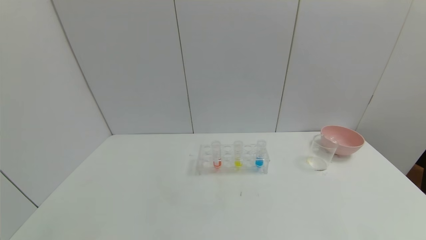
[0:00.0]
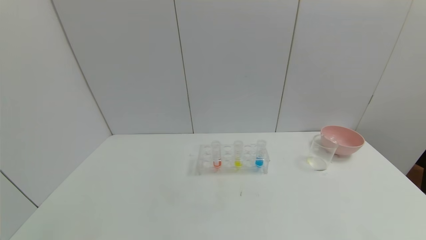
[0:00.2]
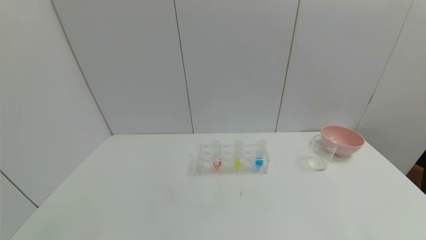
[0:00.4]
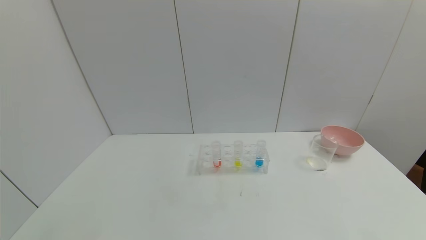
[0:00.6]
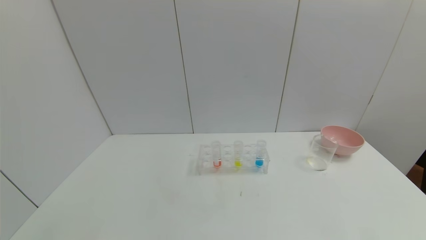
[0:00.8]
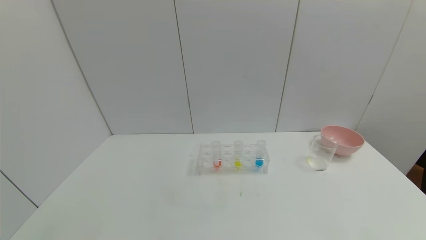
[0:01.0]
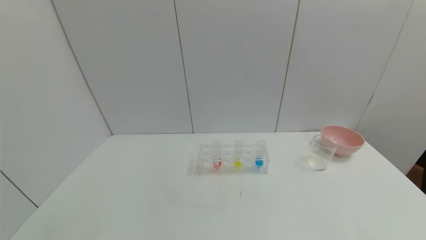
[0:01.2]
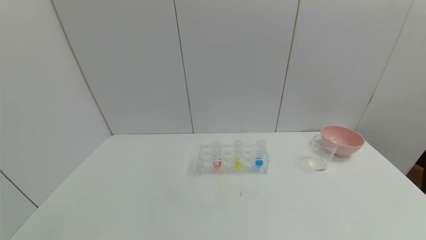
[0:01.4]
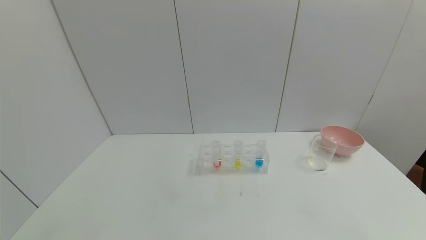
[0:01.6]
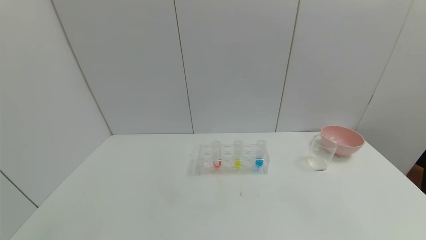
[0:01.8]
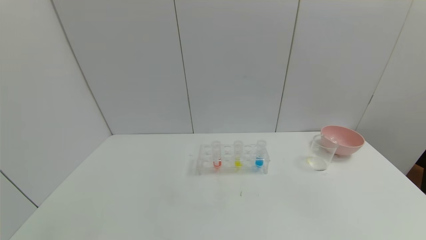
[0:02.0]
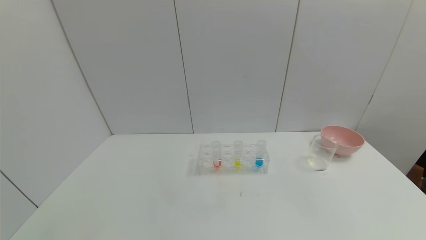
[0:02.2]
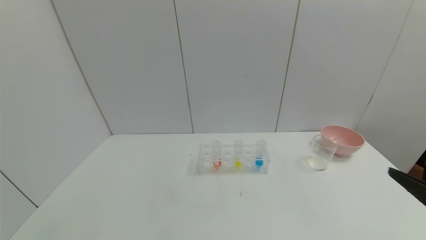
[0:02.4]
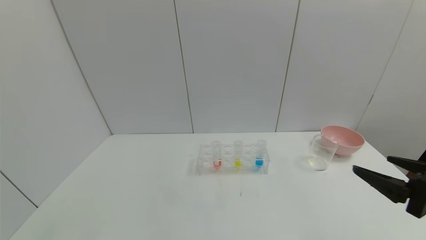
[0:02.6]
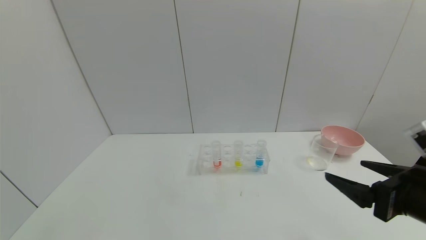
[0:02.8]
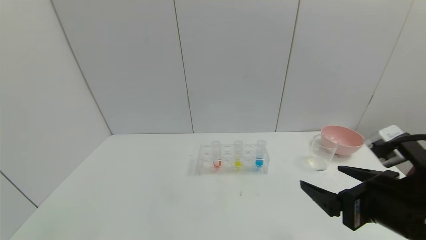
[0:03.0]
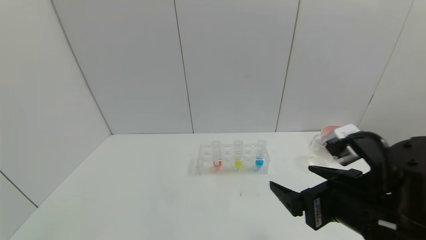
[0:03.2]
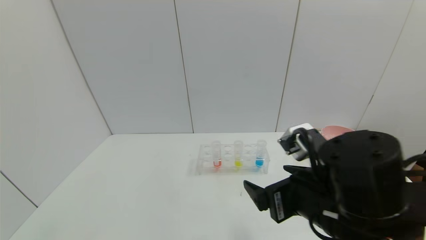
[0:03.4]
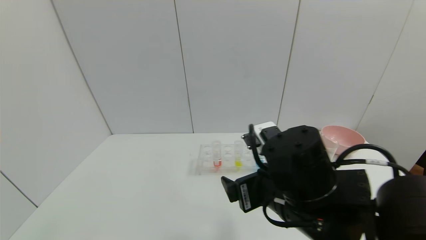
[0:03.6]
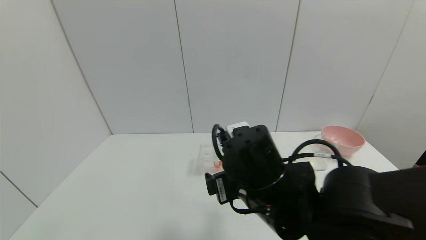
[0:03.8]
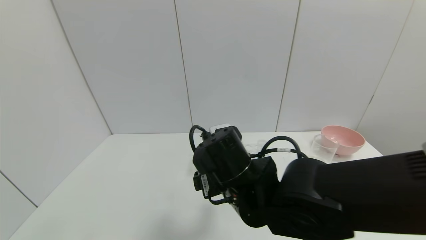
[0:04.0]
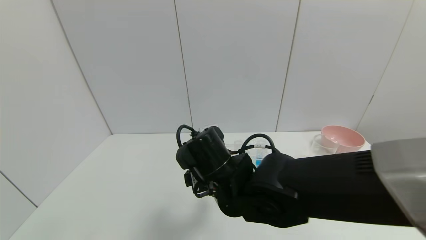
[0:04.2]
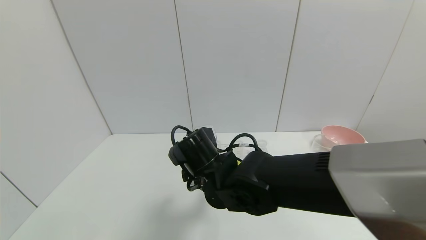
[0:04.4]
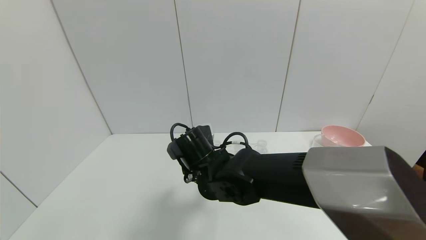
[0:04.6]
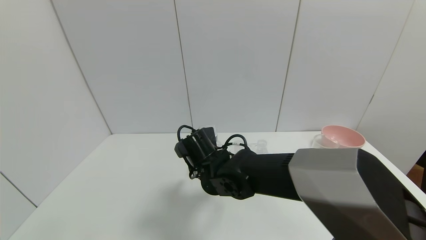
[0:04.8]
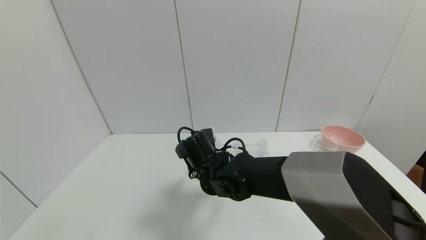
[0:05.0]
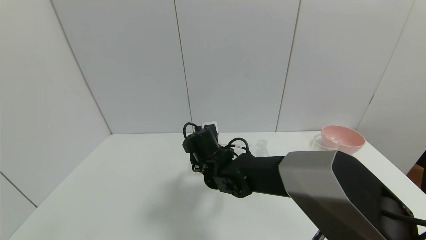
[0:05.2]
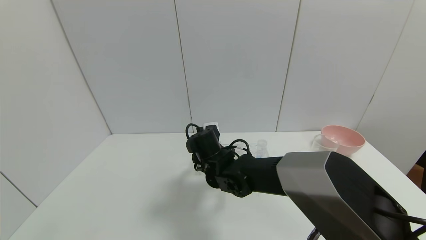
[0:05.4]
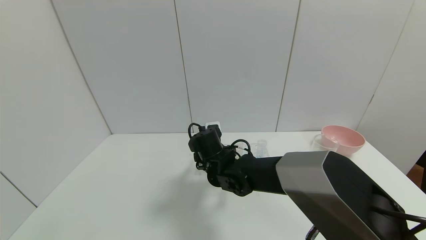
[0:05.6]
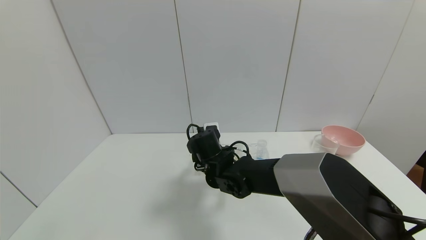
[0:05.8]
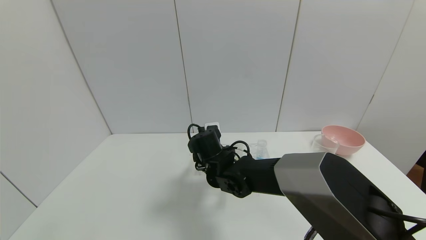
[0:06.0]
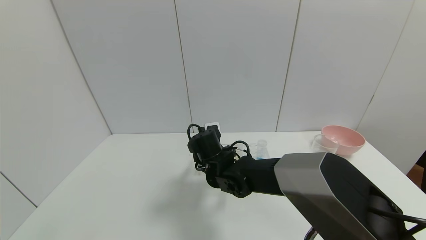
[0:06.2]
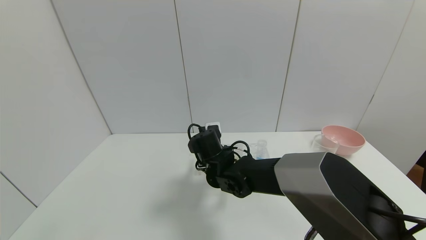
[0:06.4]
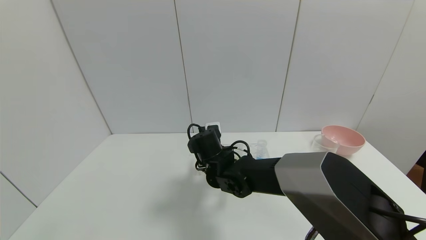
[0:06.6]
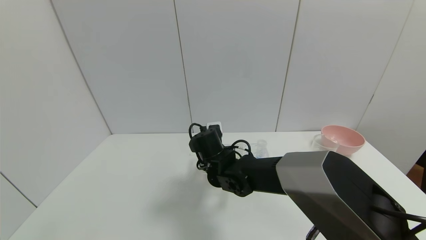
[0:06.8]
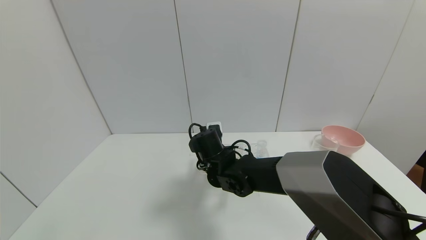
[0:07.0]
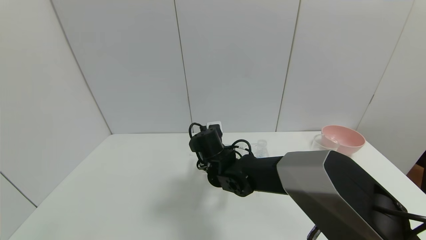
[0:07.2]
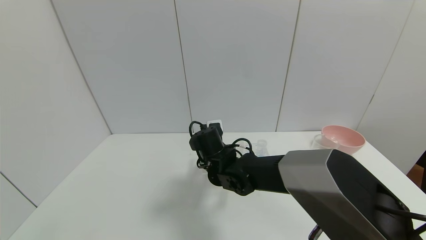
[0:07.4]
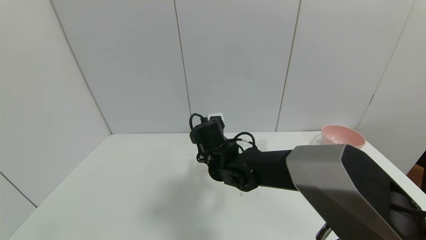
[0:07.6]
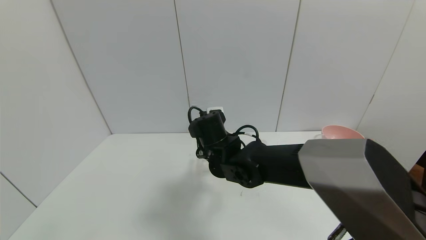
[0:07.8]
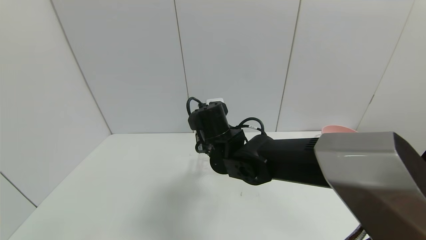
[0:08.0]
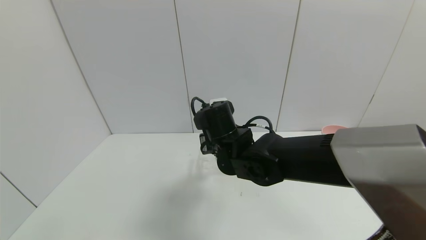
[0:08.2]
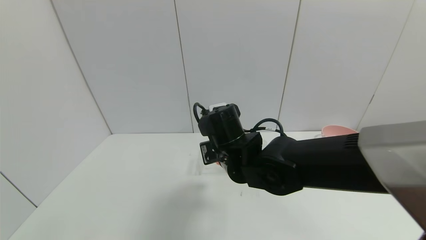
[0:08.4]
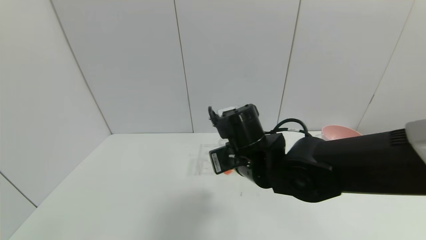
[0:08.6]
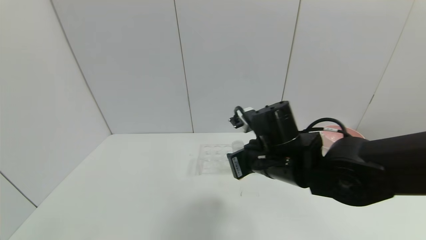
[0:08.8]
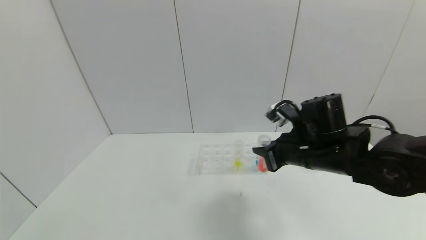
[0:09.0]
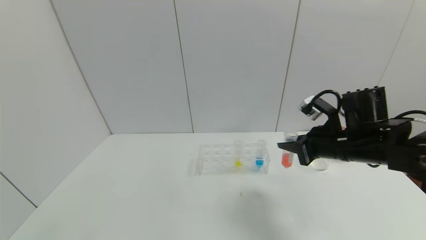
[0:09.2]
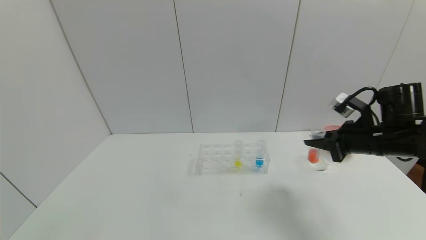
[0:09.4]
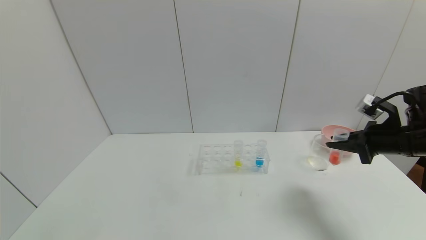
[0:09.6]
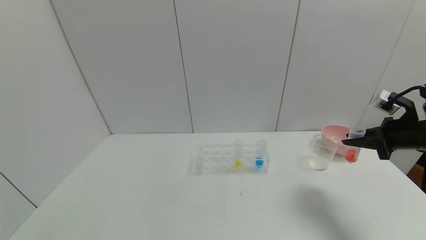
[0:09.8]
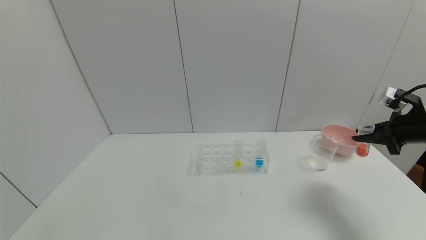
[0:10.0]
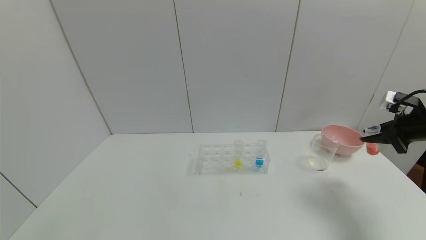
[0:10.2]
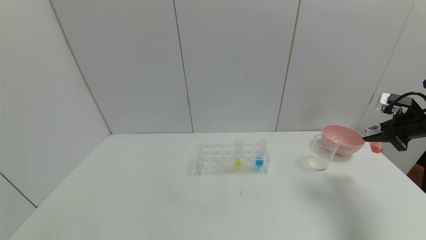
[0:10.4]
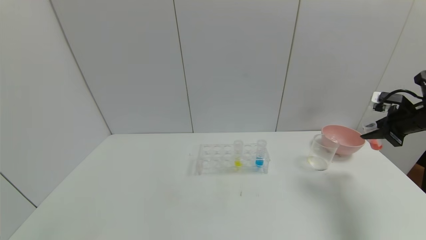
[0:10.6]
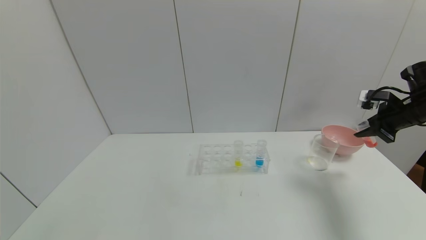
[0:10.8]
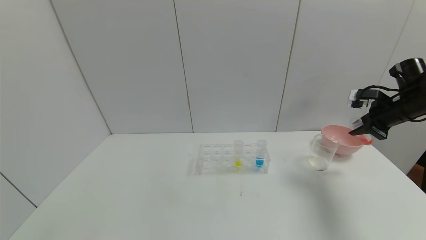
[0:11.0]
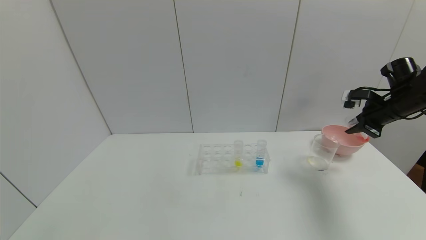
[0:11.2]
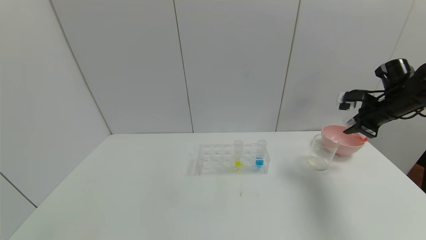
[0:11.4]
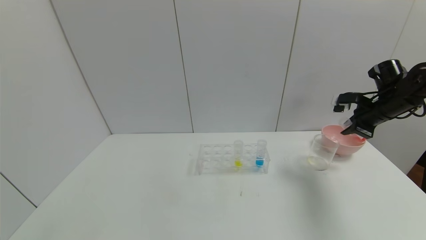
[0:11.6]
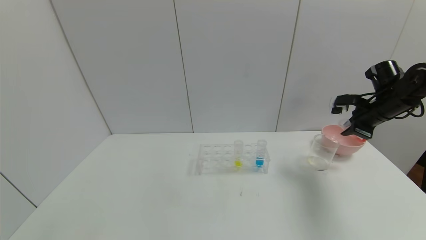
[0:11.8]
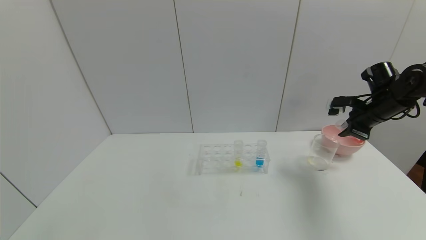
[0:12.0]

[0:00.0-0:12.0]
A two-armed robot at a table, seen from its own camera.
Task of the whole recording: pick up the test tube with yellow pigment and the test tube with red pigment by grippers and pour them into the beaker.
Step, 0:00.0 to 0:07.0: Grasp the red reagent with the right gripper.
0:01.6 to 0:03.0: The right gripper goes about 25 cm forward, to the left and upward.
0:03.0 to 0:04.4: The right gripper moves to the left and forward, some 25 cm.
0:04.4 to 0:06.0: The right gripper goes some 10 cm forward and downward.
0:06.0 to 0:07.6: The right gripper closes.
0:07.6 to 0:09.0: The right gripper travels to the right by some 20 cm.
0:09.0 to 0:10.4: The right gripper moves to the right, approximately 30 cm.
0:10.4 to 0:12.0: The right gripper goes some 10 cm to the left and forward.

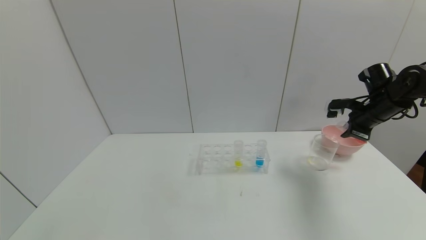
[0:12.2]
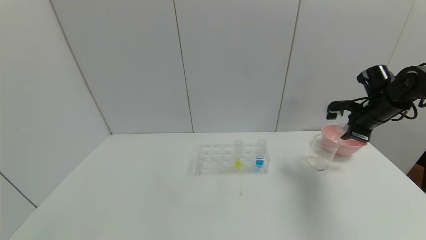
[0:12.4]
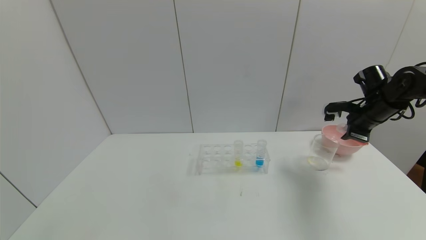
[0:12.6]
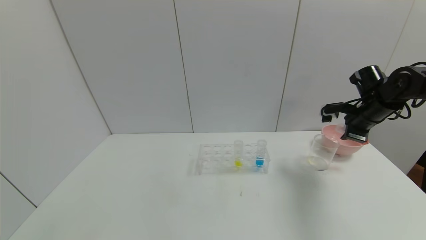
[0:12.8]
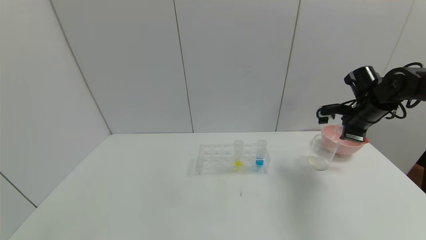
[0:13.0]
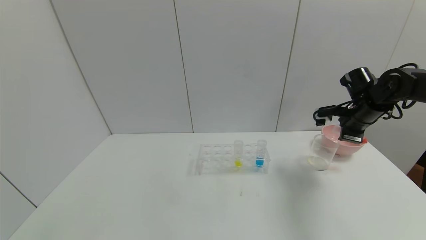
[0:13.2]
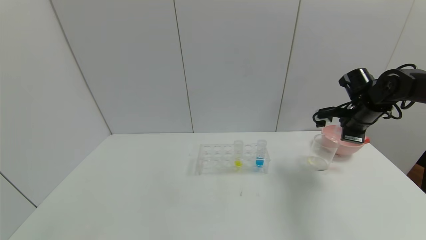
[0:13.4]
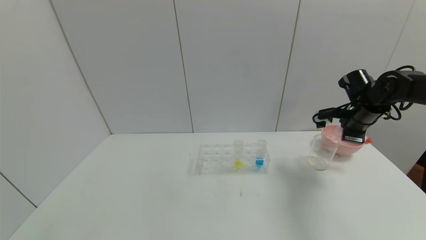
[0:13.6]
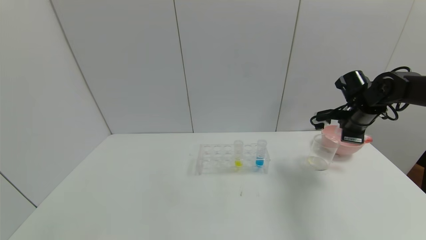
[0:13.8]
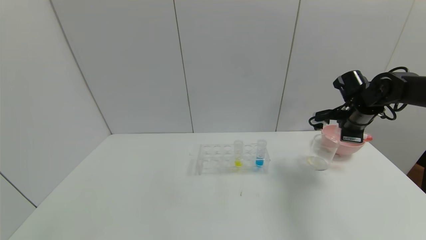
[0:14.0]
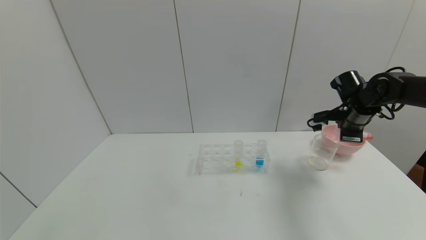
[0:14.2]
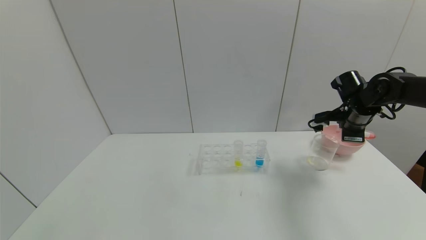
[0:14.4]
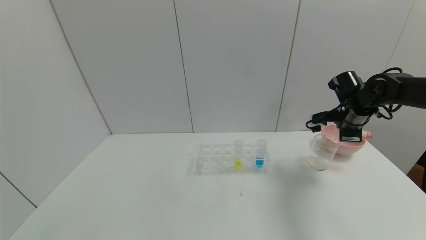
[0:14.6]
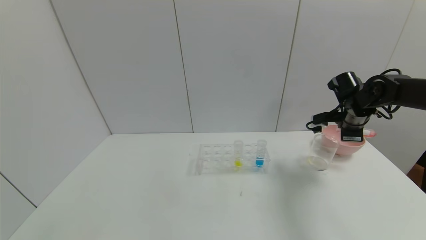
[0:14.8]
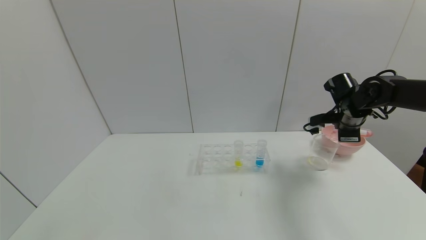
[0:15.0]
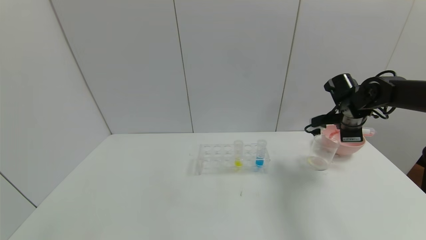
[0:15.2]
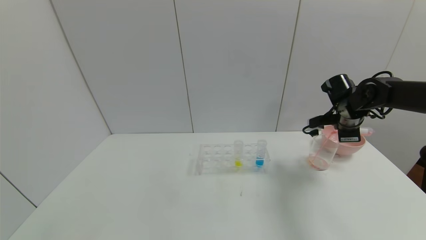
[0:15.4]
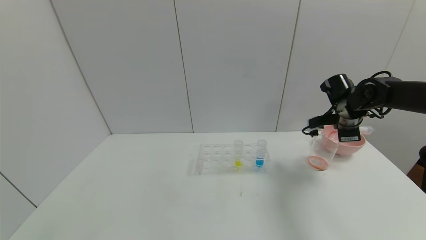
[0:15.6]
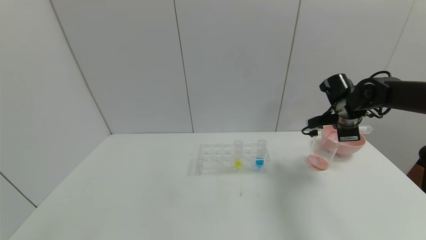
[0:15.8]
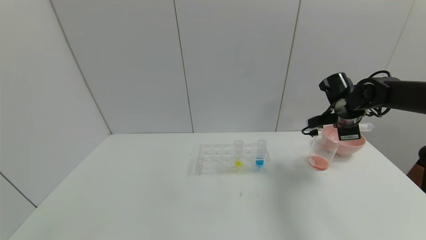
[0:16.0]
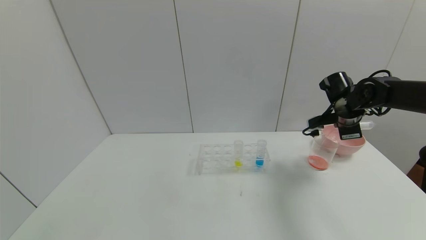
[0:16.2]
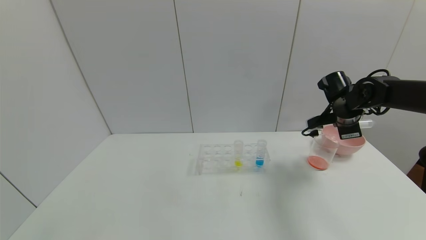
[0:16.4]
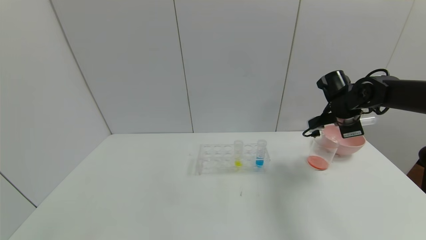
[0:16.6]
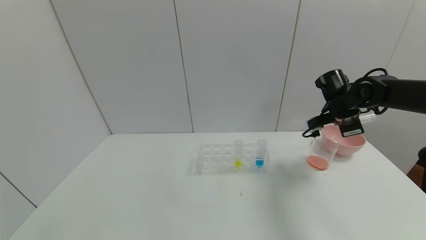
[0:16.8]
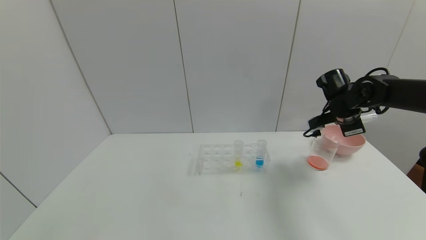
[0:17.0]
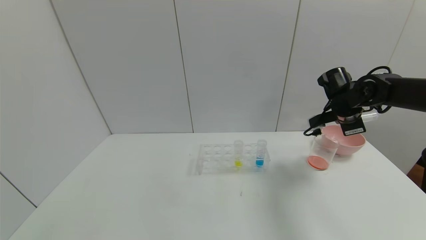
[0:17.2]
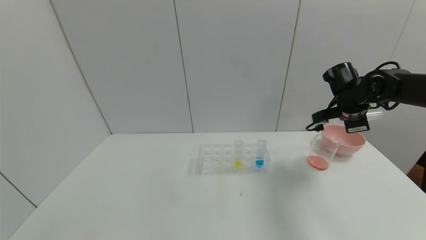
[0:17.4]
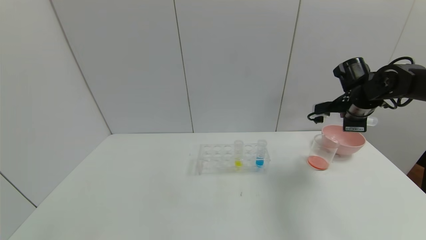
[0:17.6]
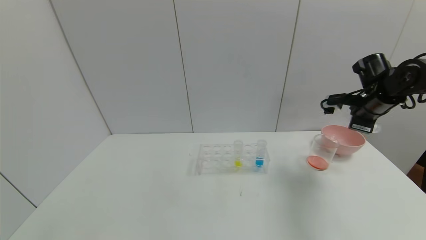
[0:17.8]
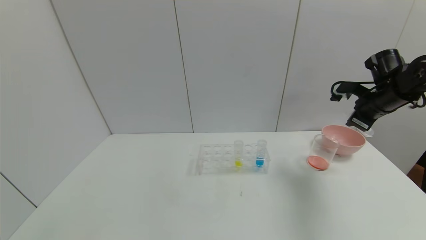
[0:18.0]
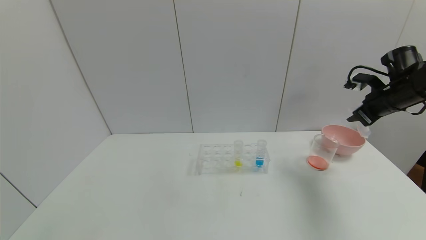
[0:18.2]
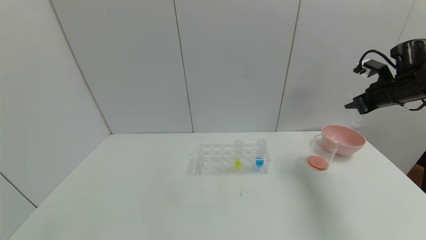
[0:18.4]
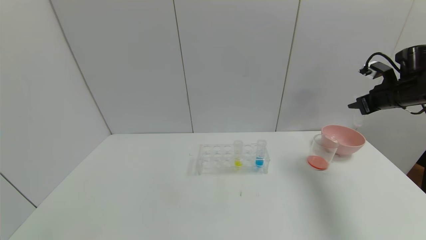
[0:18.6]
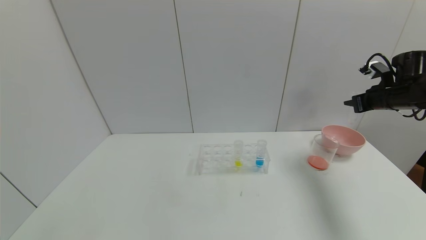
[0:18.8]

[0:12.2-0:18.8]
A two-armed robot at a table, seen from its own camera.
Task of the whole recording: pick up the test tube with yellow pigment and the test tube with red pigment by grippers and pour them into the beaker.
Step, 0:12.2 to 0:16.8: Pour the red reagent into the graduated cylinder with the right gripper.
0:12.2 to 0:13.8: The grippers stay close to where they were, moving slightly.
0:13.8 to 0:15.4: The grippers move only a little.
0:15.4 to 0:17.2: The grippers make only small movements.
0:17.2 to 0:18.8: The right gripper heads to the right, covering roughly 10 cm.
